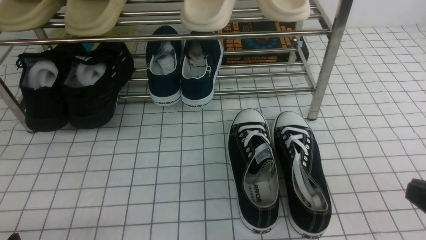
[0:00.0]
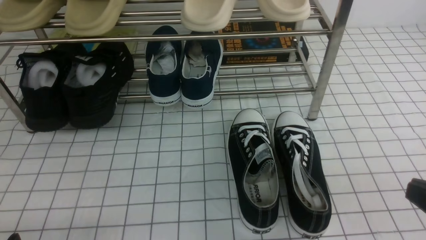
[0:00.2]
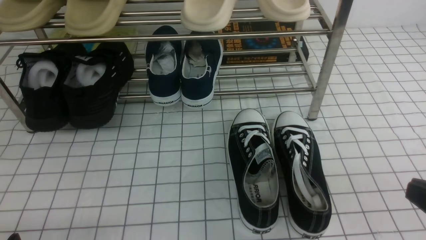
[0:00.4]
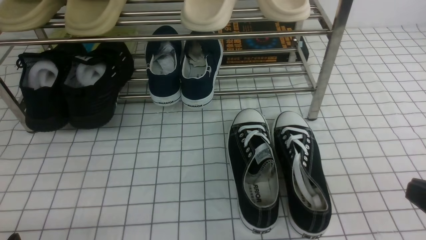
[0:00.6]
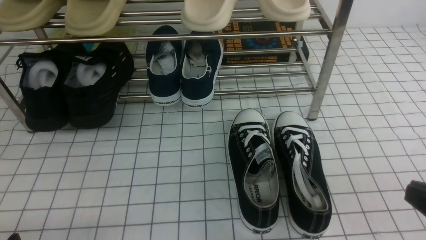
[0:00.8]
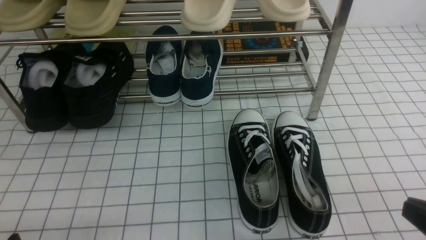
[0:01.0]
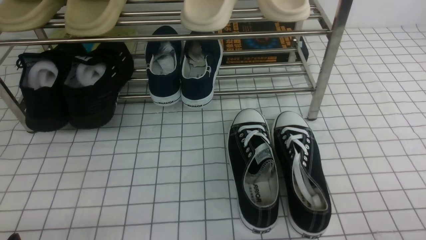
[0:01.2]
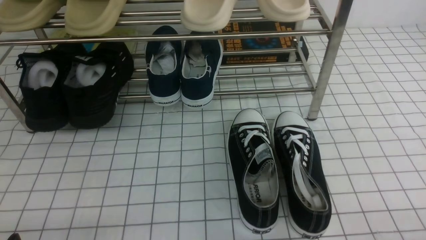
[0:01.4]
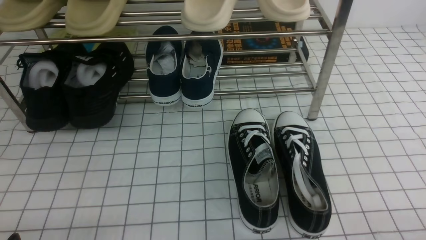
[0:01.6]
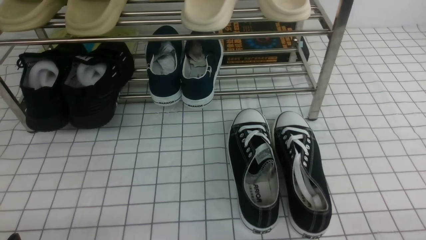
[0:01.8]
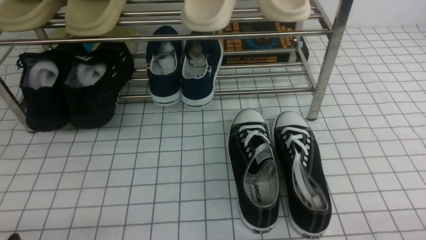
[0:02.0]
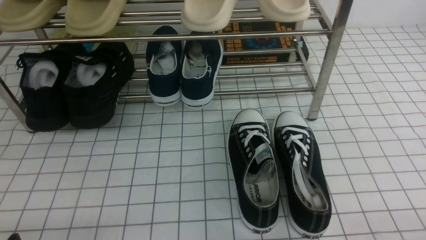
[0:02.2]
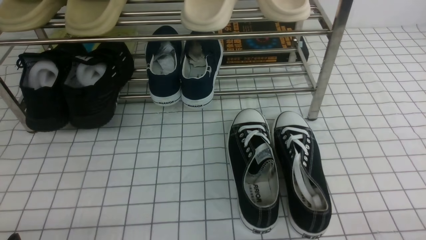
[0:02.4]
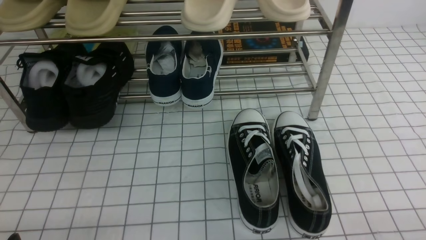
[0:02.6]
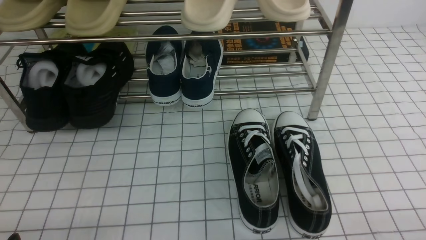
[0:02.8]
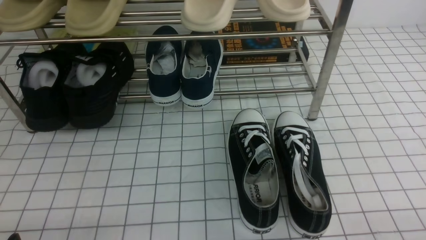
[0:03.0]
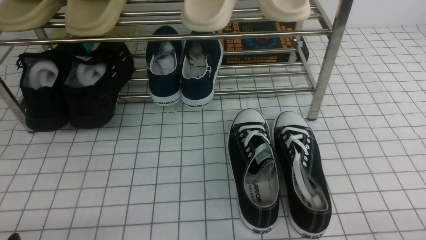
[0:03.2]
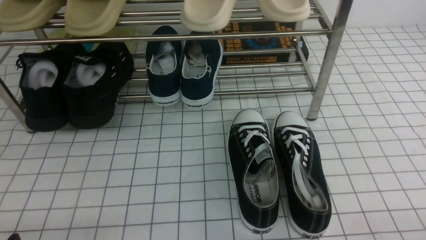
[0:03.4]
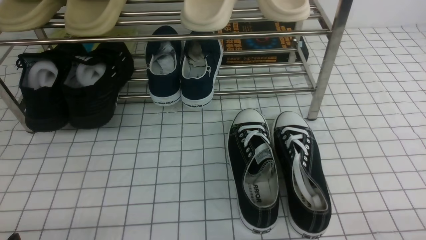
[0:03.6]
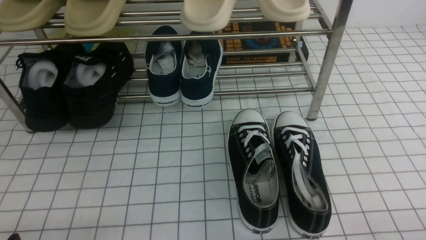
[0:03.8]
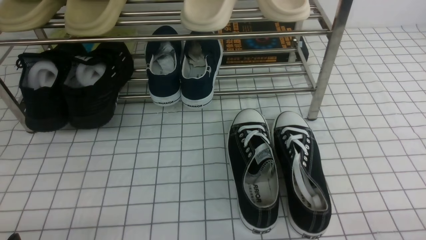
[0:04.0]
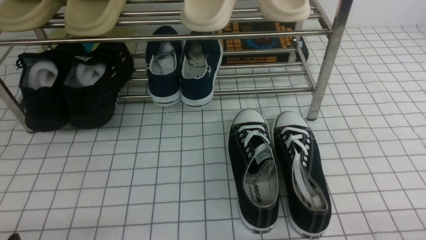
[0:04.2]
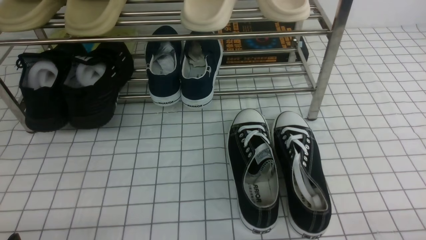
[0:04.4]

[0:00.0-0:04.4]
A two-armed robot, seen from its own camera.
0:01.4 to 0:04.4: The two grippers keep their place.
